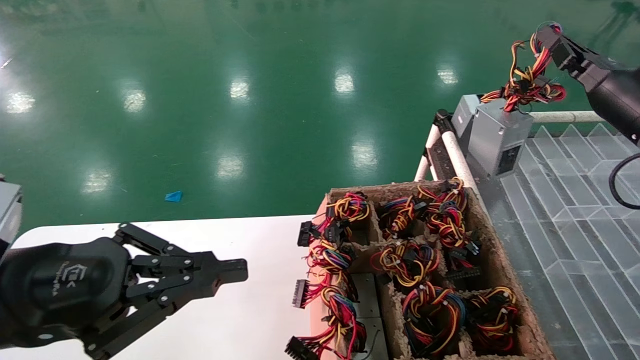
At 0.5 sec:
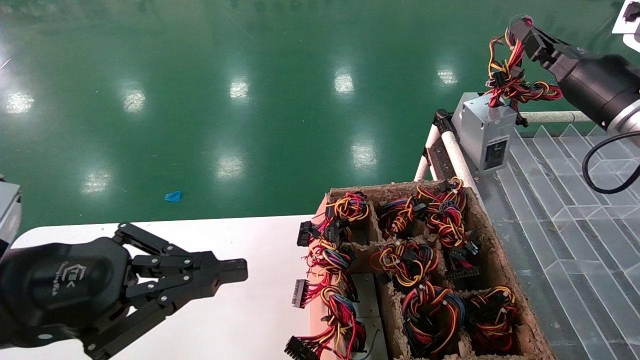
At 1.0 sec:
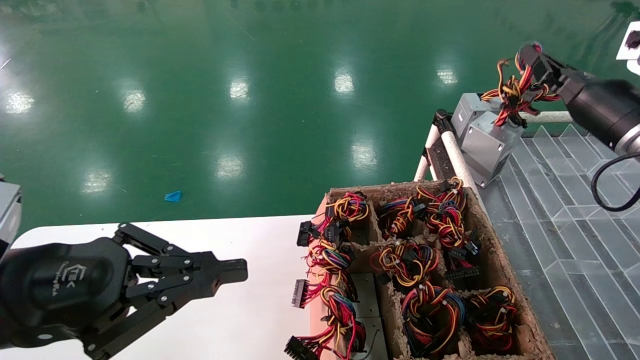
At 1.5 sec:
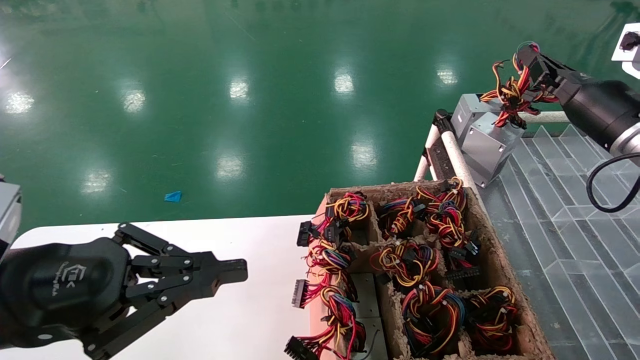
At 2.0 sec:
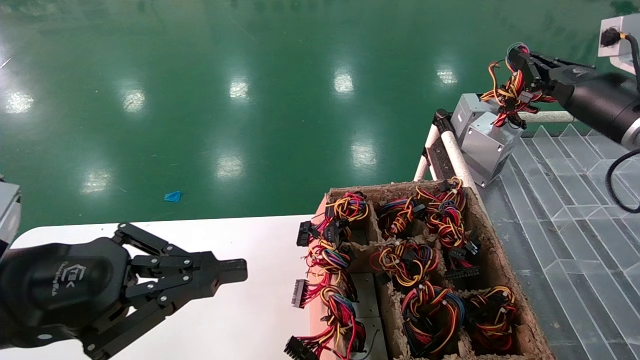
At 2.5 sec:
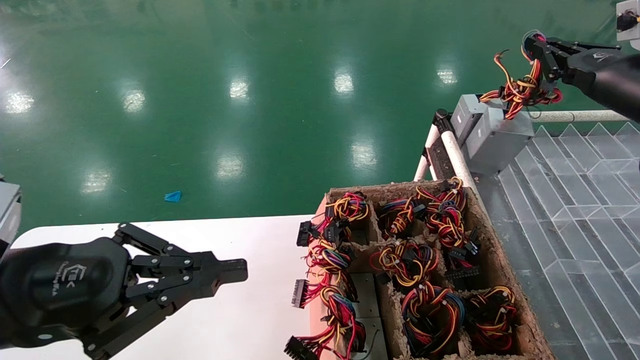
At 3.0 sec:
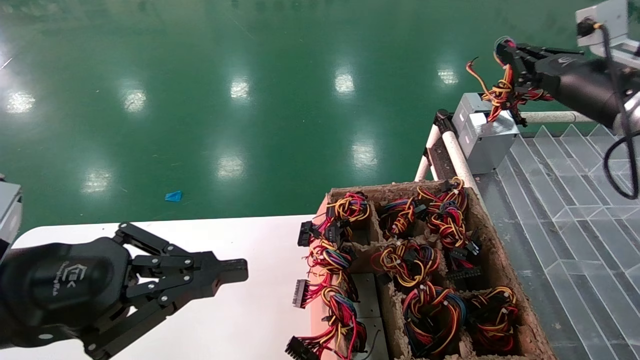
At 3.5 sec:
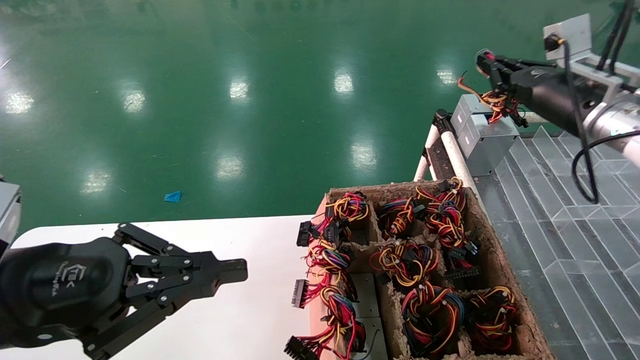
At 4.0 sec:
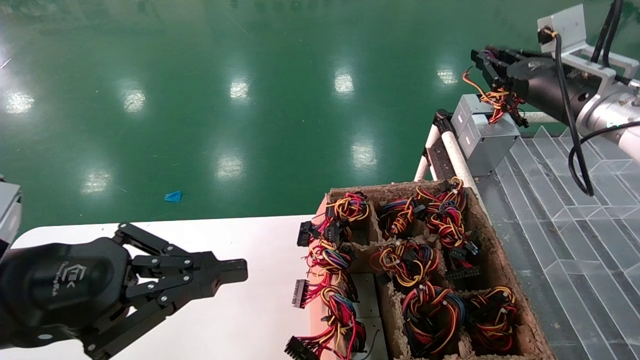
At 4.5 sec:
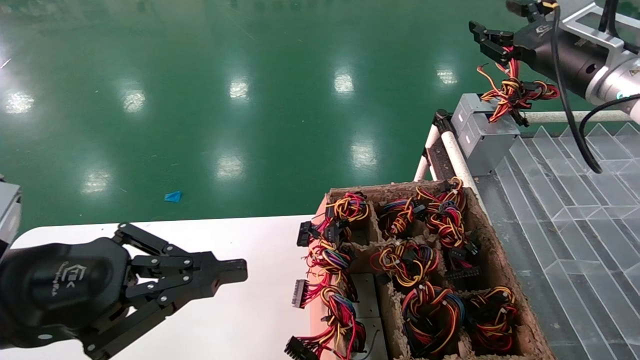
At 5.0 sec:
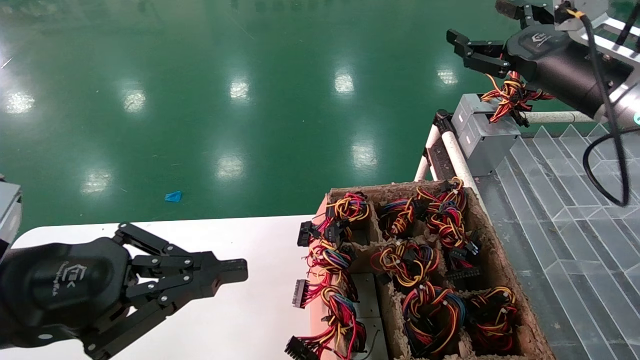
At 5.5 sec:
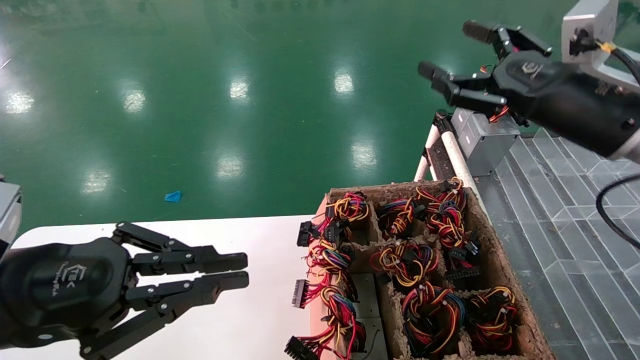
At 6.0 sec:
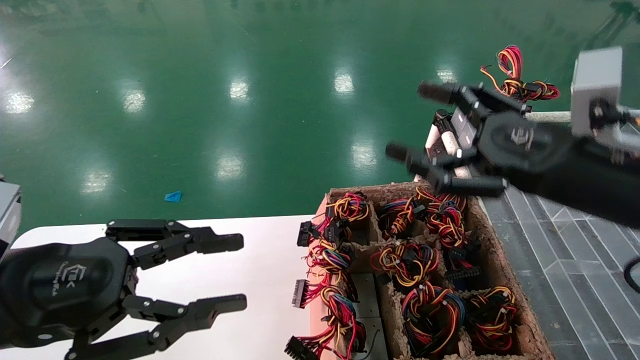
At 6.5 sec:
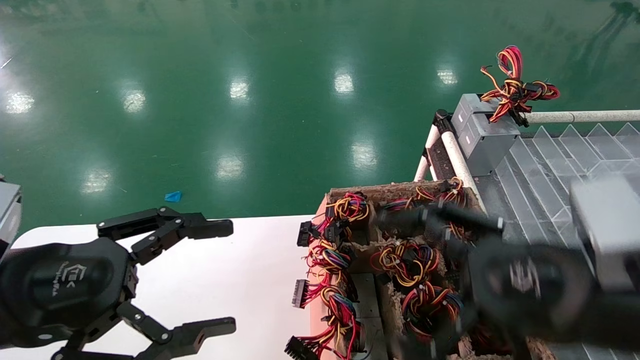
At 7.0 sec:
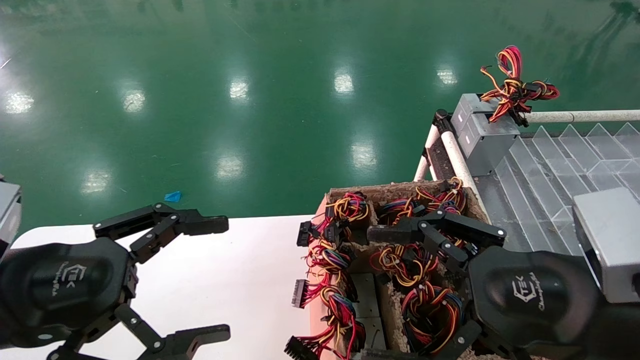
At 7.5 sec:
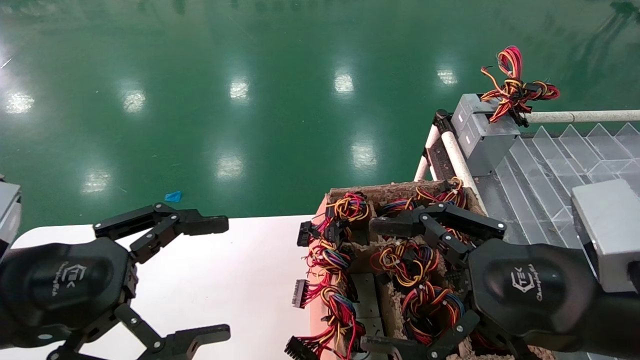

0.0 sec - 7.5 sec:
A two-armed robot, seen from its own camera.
Step, 0.0 sec - 3.5 sec: Place the main unit power supply in the designated area.
0.0 sec - 2.0 sec: There are only small adjustments of the grippers.
2.0 sec - 4.0 sec: The right gripper changes place by some 5 cm.
4.0 sec - 5.5 sec: The right gripper moves backward and to the left, approximately 10 cm, and opens.
5.5 sec - 7.5 sec: The right gripper is displaced backward, downward and to the left by about 20 cm; the left gripper opens.

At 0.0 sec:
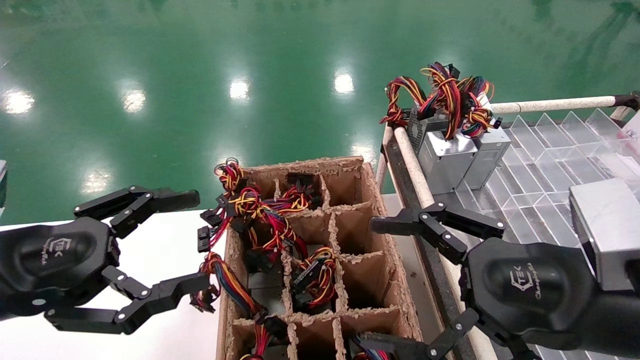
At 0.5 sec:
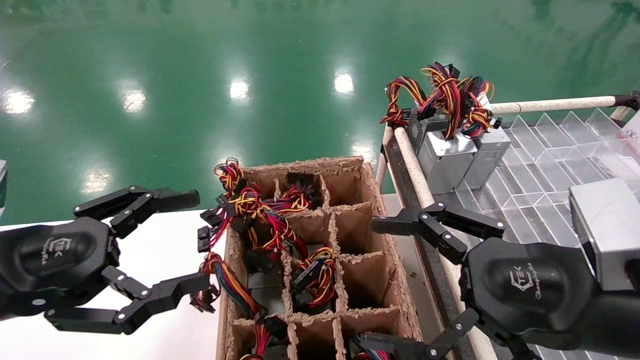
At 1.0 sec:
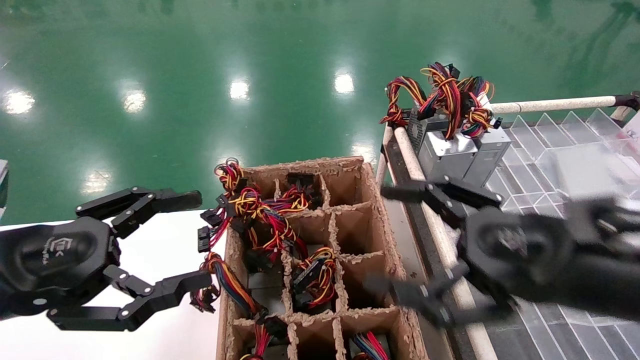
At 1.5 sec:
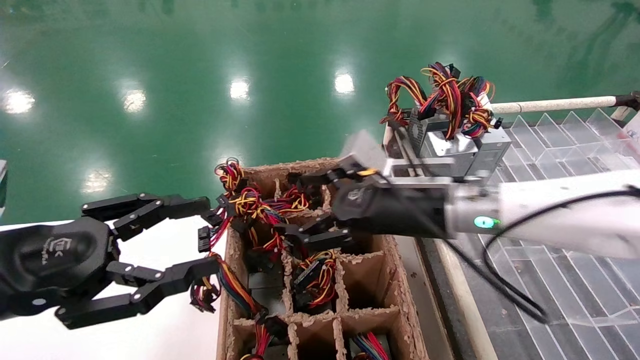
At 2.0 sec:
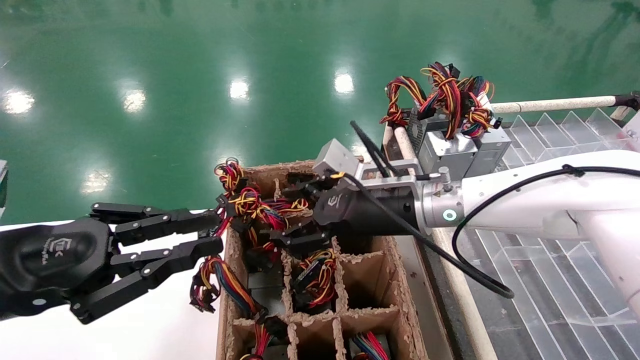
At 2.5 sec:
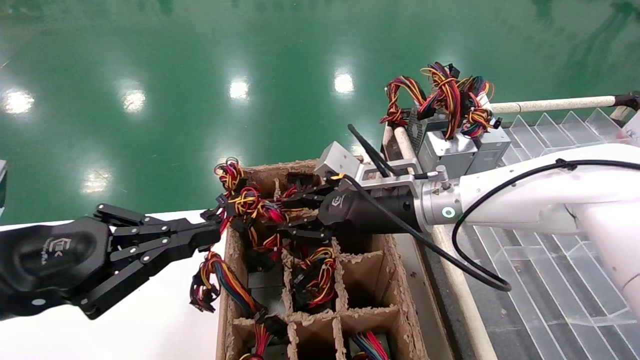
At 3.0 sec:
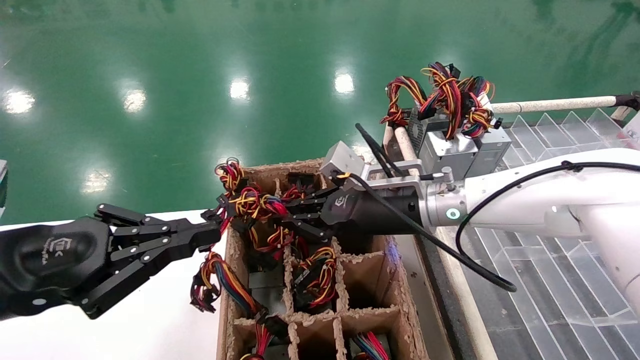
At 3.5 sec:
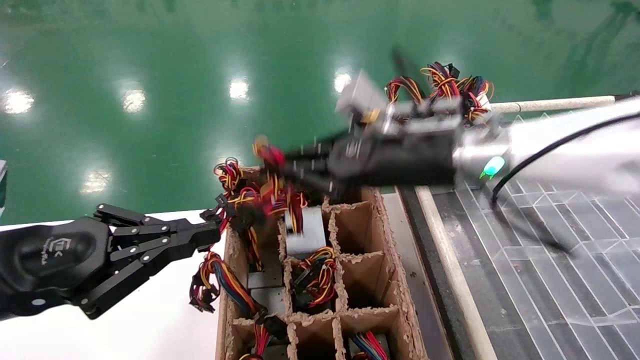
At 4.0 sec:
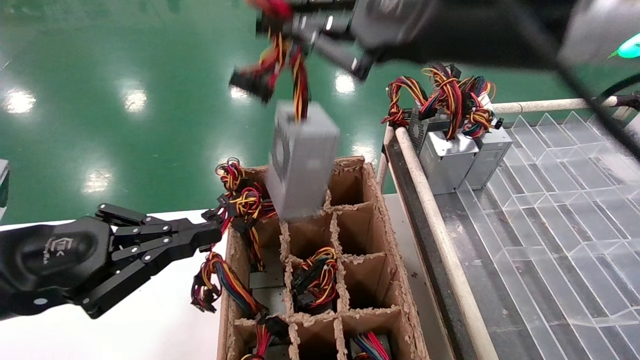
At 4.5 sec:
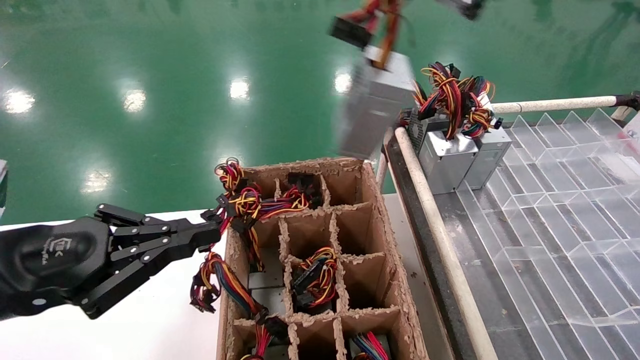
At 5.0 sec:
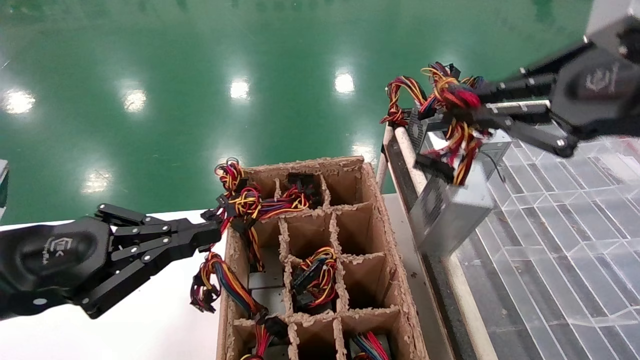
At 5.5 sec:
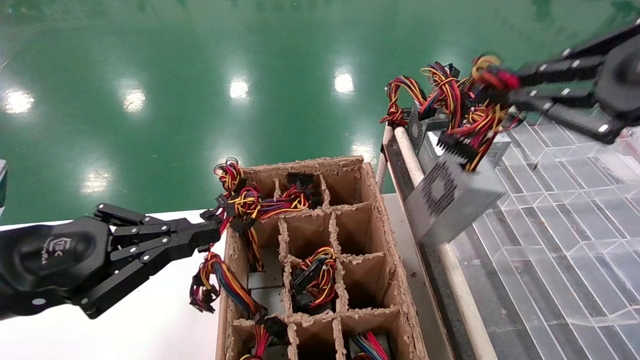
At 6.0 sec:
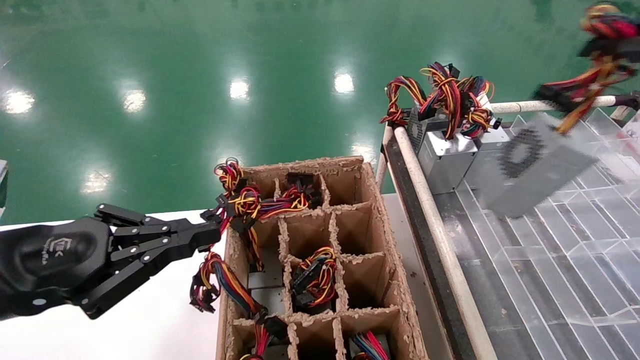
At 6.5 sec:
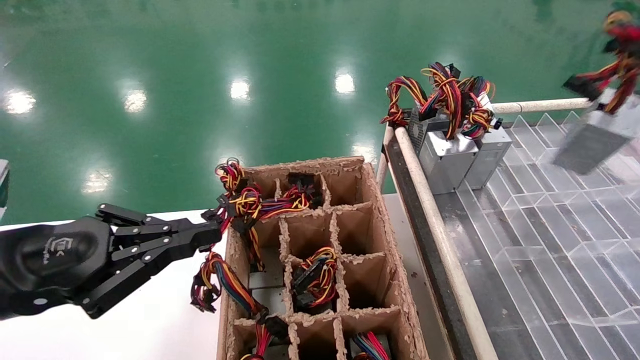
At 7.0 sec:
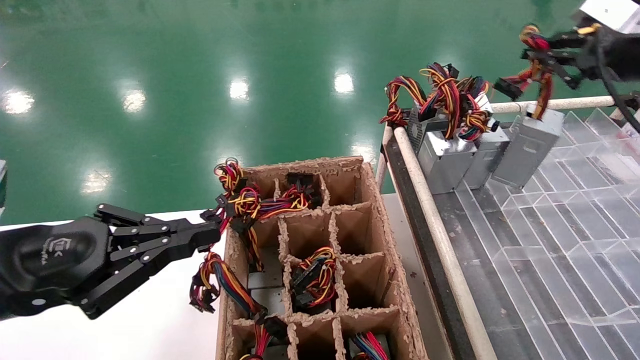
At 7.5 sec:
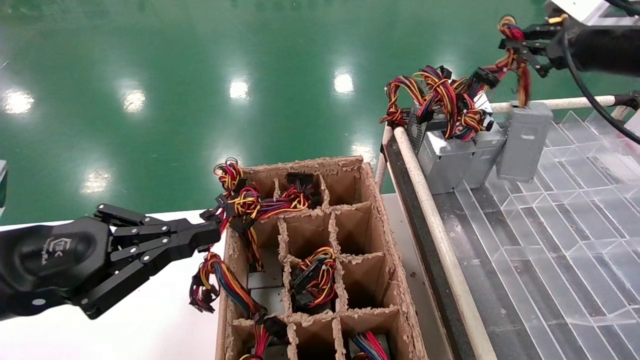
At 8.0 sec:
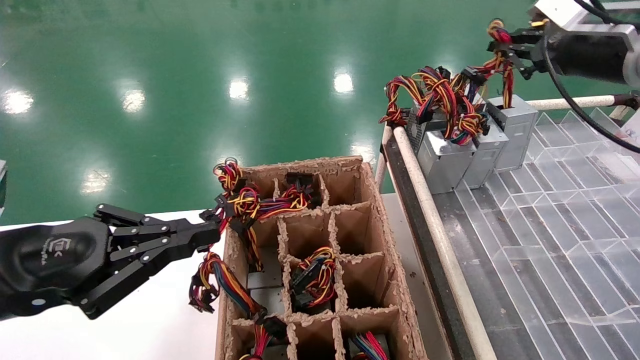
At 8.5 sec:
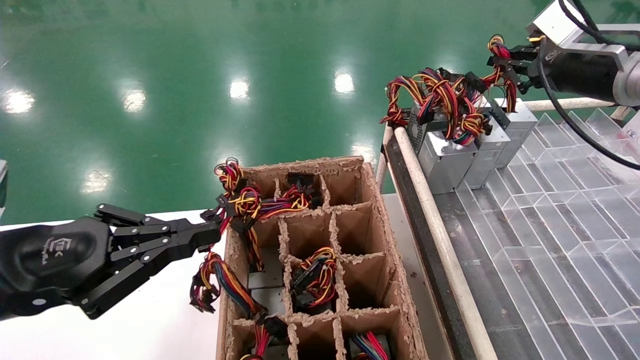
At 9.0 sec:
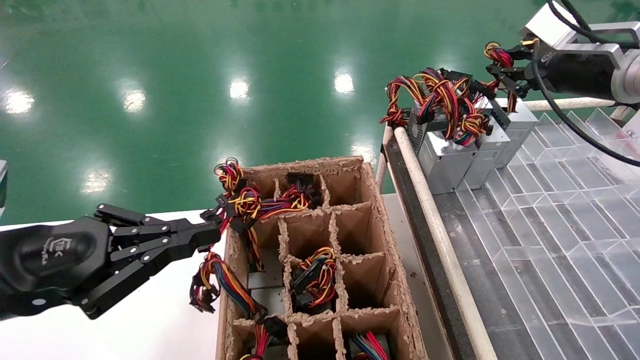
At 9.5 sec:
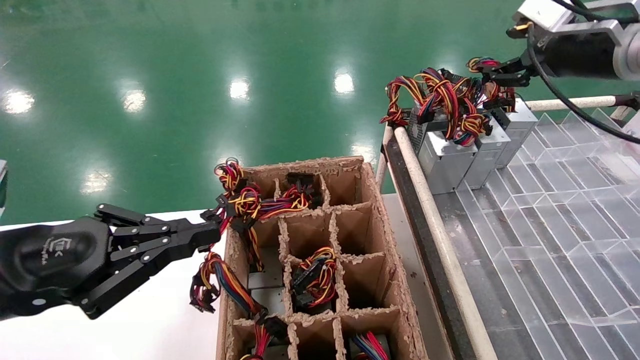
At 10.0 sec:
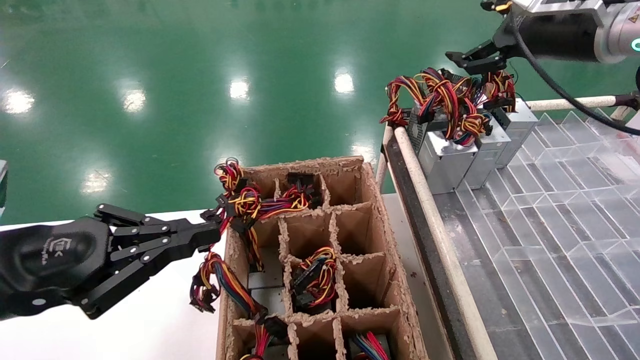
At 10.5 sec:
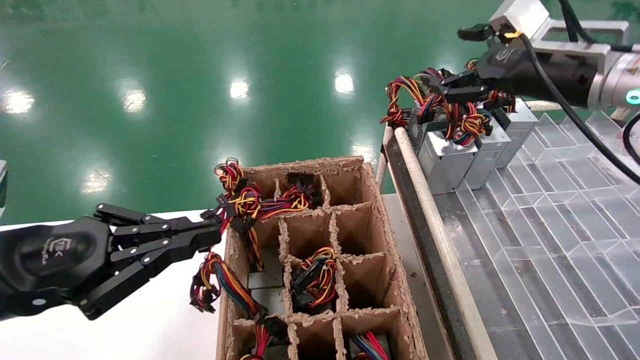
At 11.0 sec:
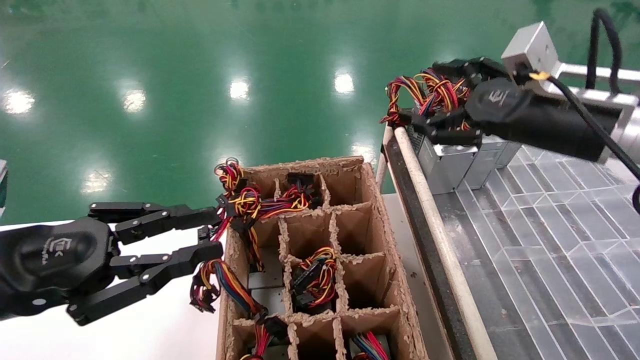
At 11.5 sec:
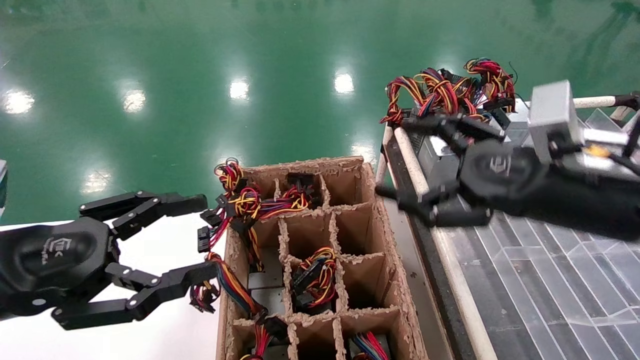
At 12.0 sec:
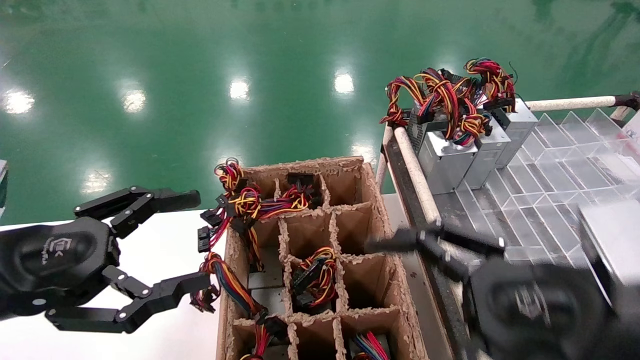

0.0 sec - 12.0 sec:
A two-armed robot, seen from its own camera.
Step, 1.5 sec - 3.0 sec: Grab the main unit power supply from the containment box.
Step, 3.5 sec - 9.0 sec: Place the main unit power supply in the designated area.
0.0 sec - 2.0 sec: The right gripper shifts approximately 25 cm forward and to the left. The left gripper closes up.
2.0 sec - 4.0 sec: The right gripper travels upward and backward by about 25 cm, and closes up.
4.0 sec - 6.0 sec: The right gripper moves to the right, approximately 25 cm.
6.0 sec - 8.0 sec: The right gripper travels forward by approximately 25 cm.
8.0 sec - 10.0 sec: The right gripper travels to the left by some 5 cm, and opens its fingers.
10.0 sec - 12.0 sec: The left gripper opens up. The right gripper shifts approximately 30 cm backward and downward.
